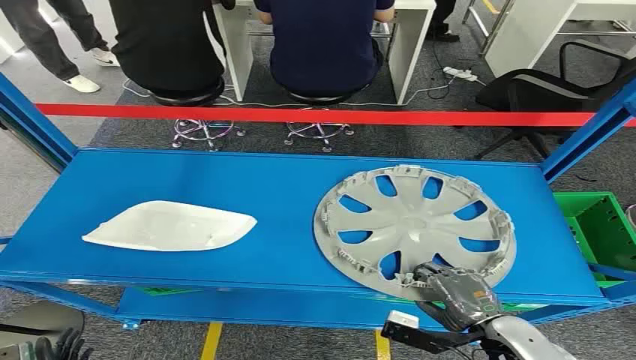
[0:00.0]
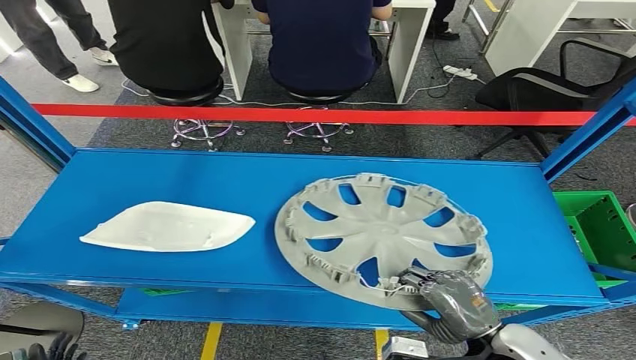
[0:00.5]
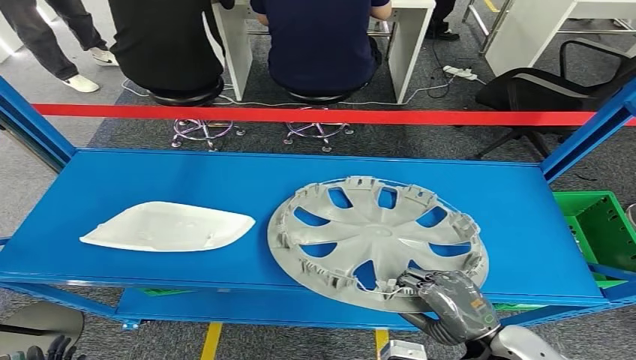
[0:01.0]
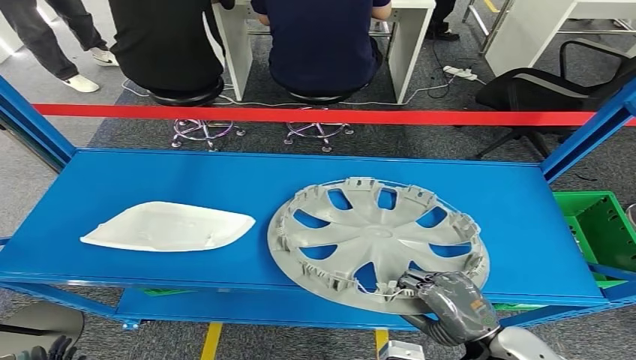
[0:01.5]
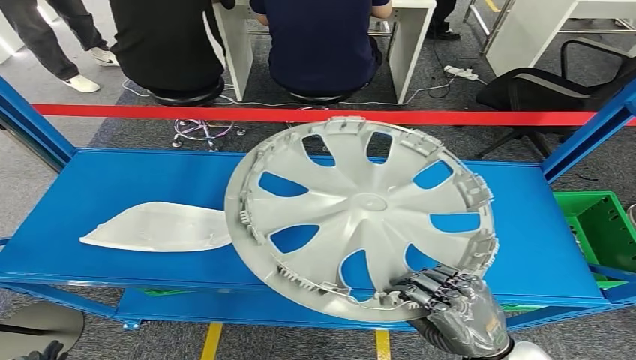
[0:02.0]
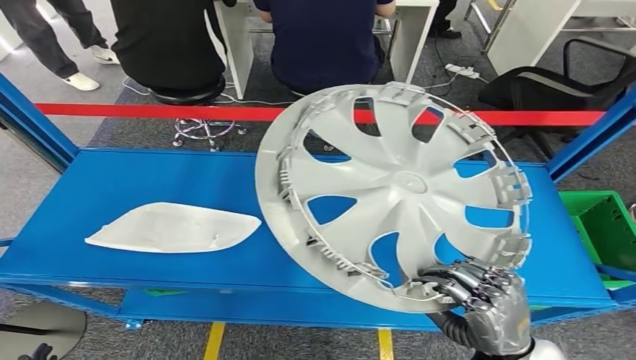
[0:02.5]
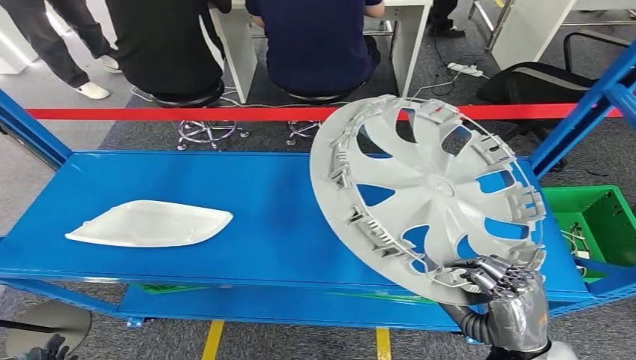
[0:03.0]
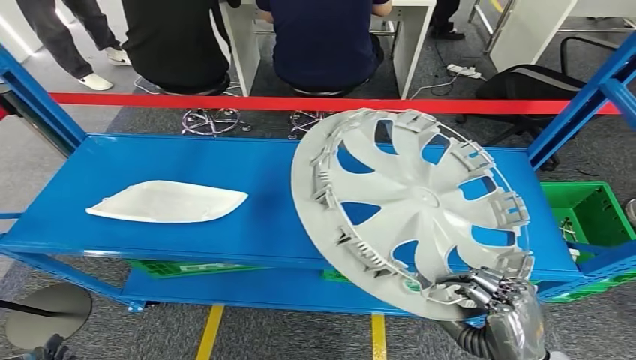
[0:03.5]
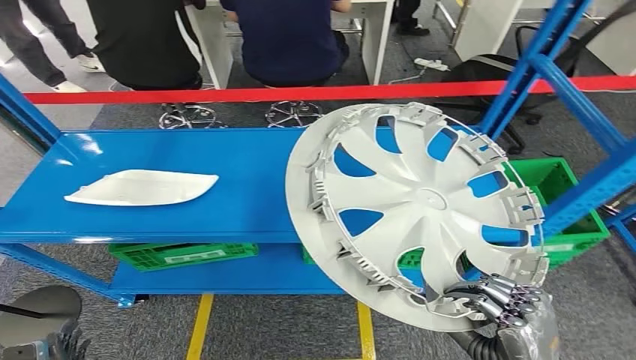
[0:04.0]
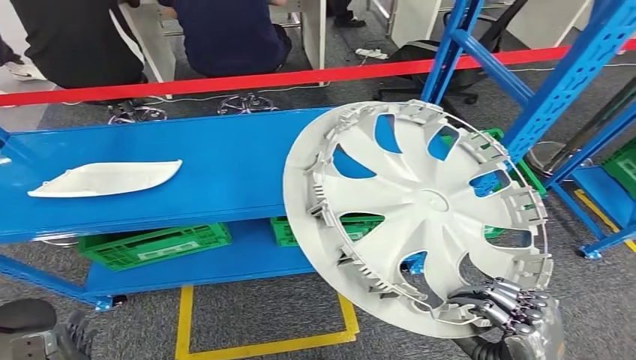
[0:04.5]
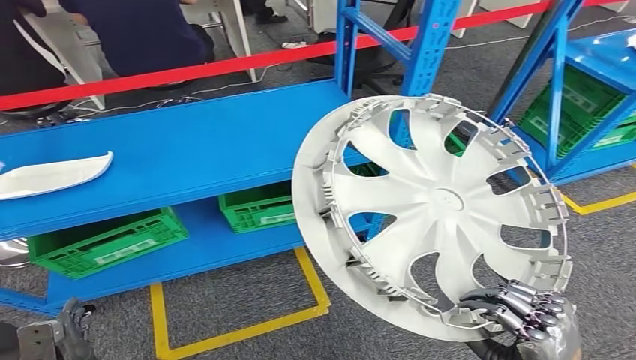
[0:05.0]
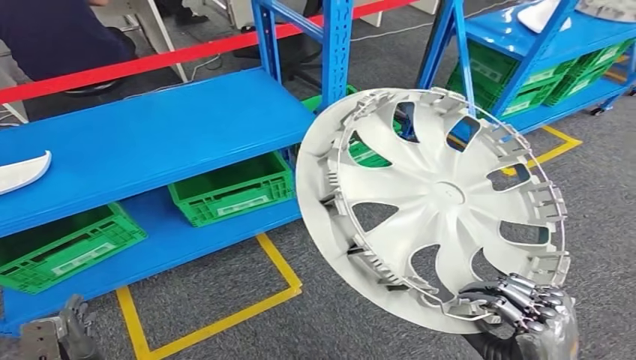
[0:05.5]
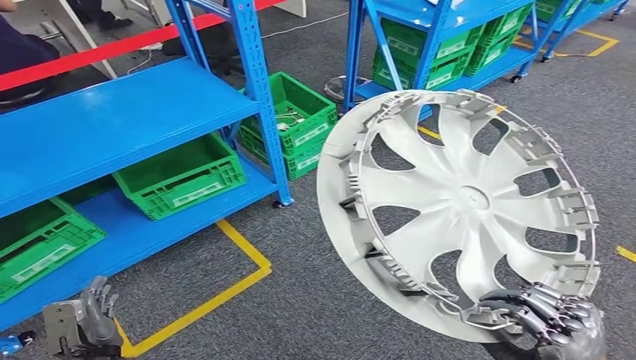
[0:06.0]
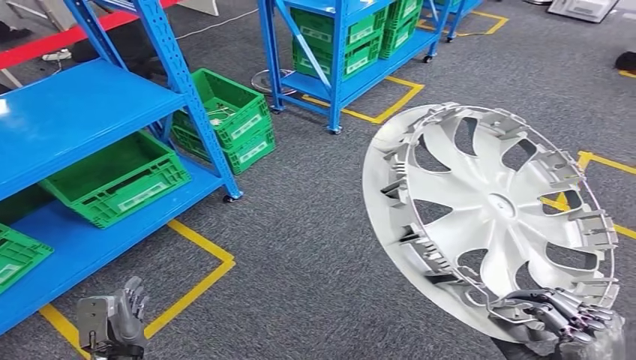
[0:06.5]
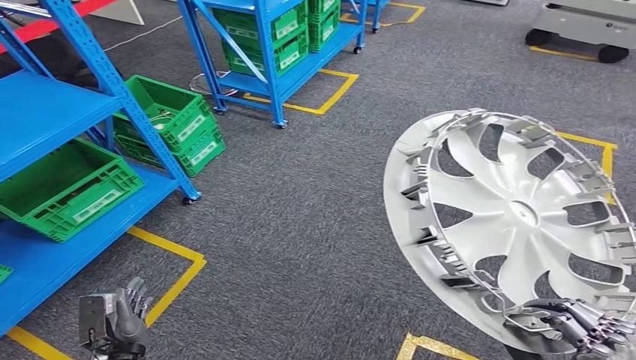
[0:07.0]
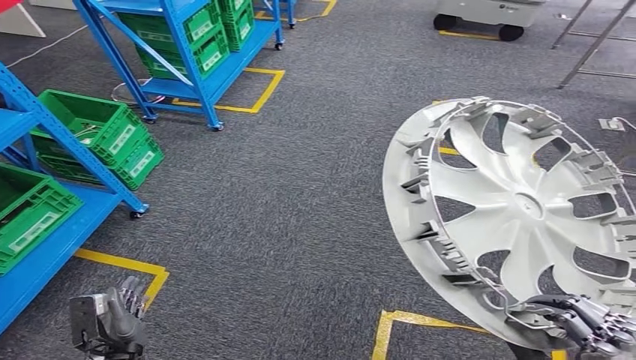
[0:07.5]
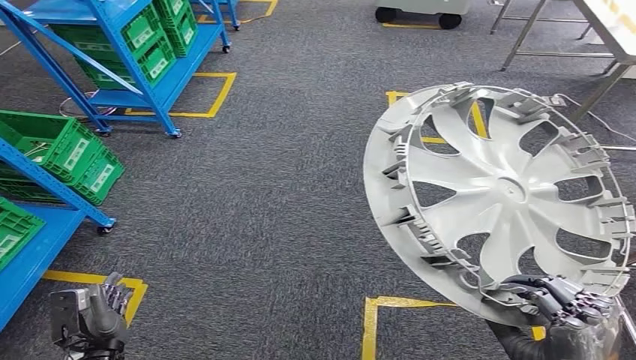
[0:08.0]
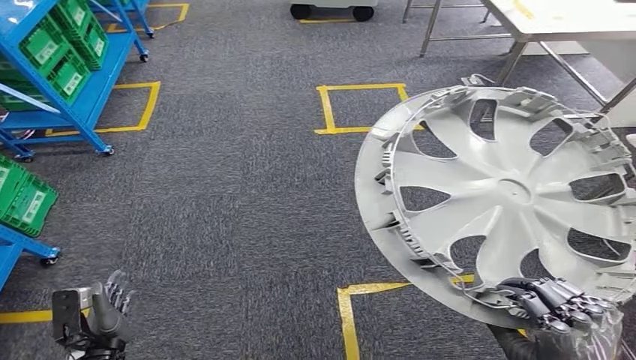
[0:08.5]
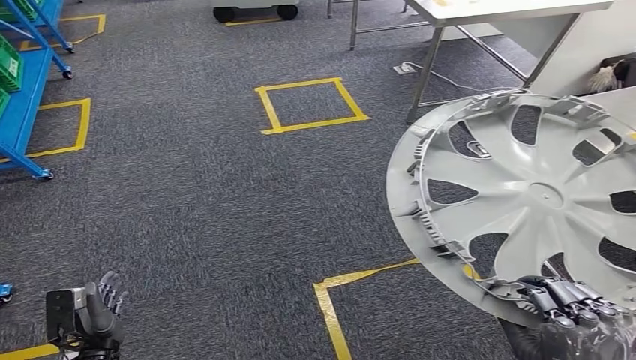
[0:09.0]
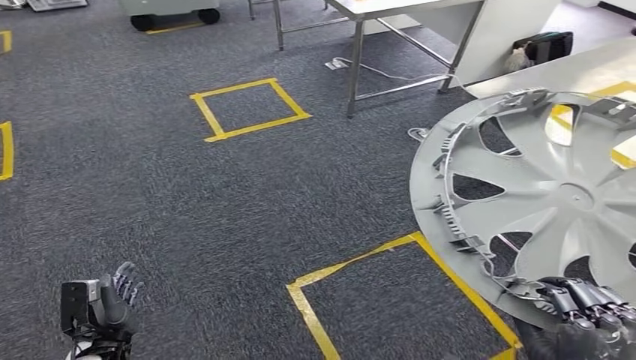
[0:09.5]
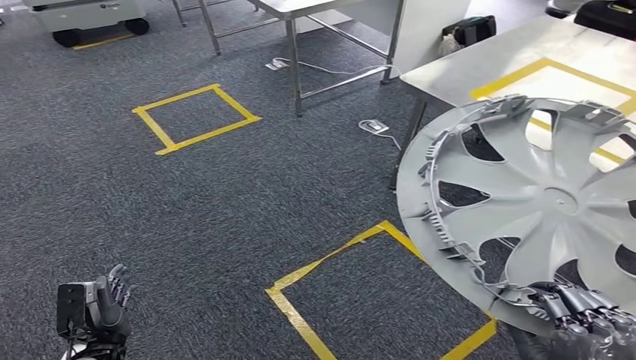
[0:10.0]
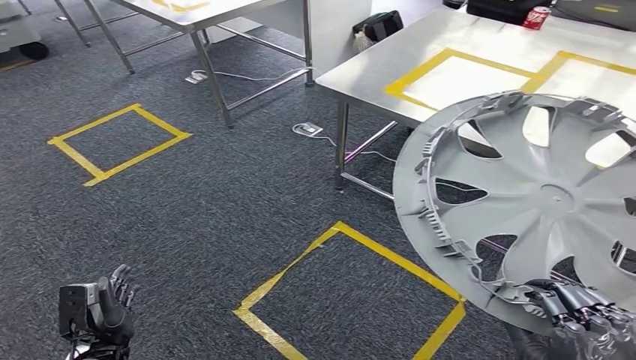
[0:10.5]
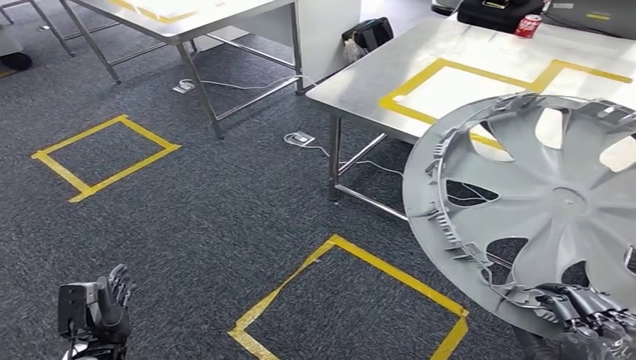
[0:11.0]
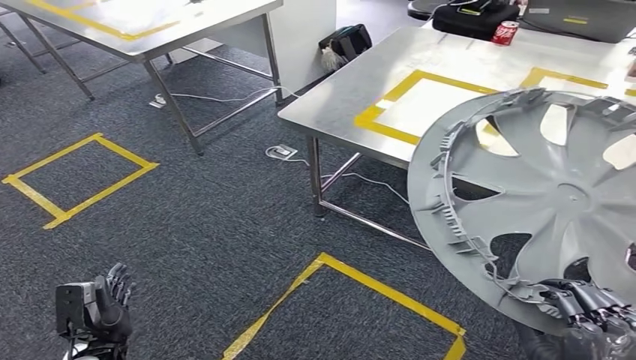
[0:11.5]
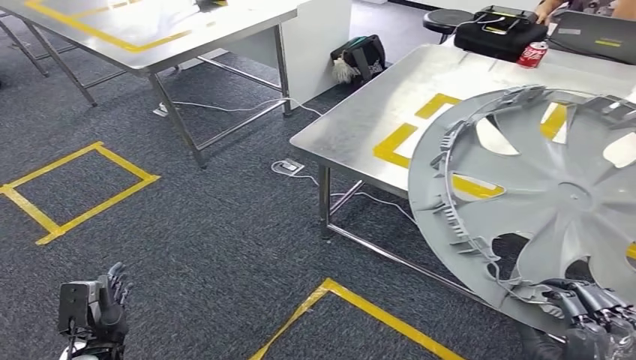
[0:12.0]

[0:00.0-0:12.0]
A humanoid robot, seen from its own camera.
Step, 0:00.0 to 0:03.0: Pick up the small component from the shelf.

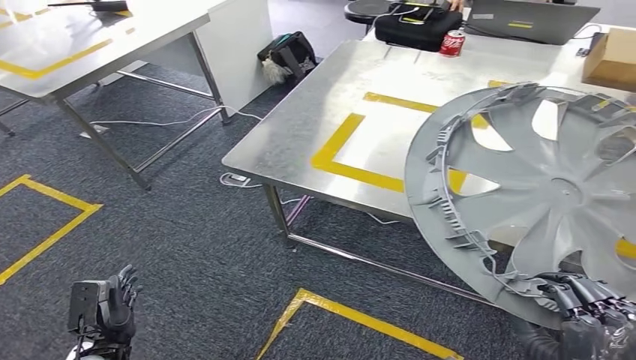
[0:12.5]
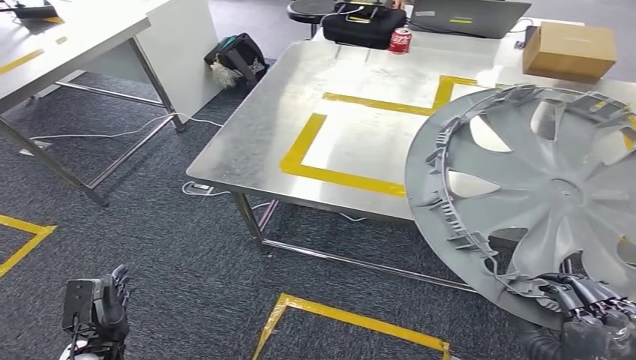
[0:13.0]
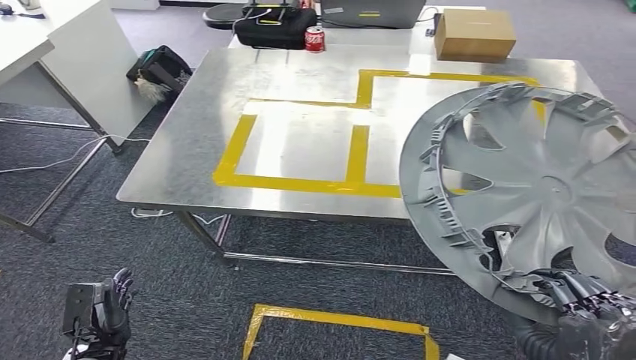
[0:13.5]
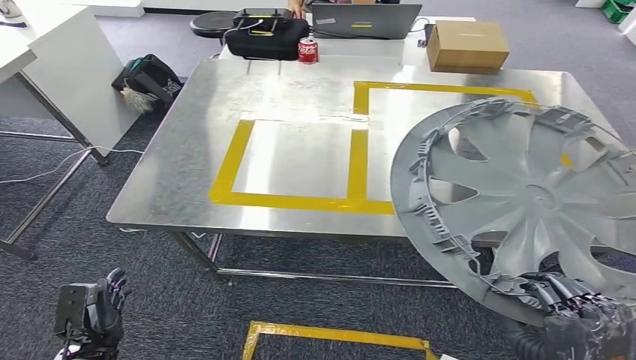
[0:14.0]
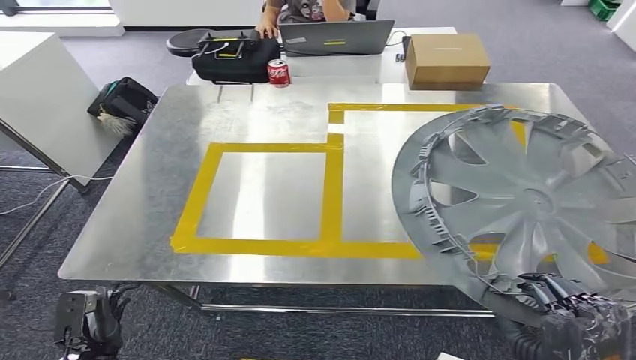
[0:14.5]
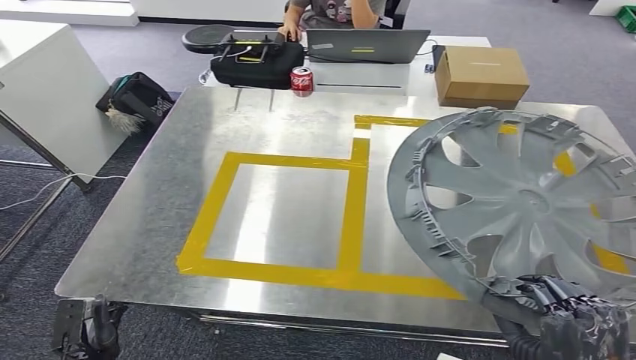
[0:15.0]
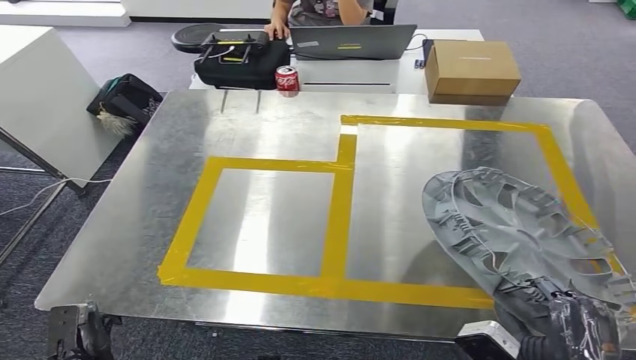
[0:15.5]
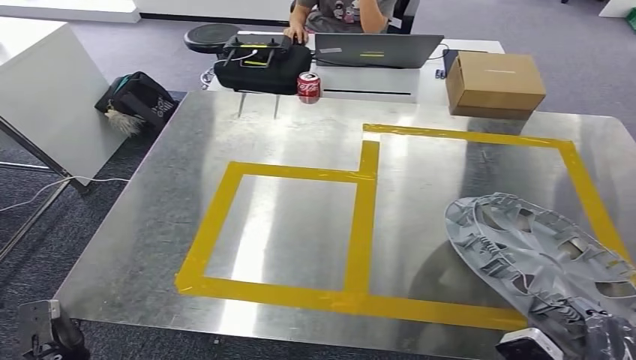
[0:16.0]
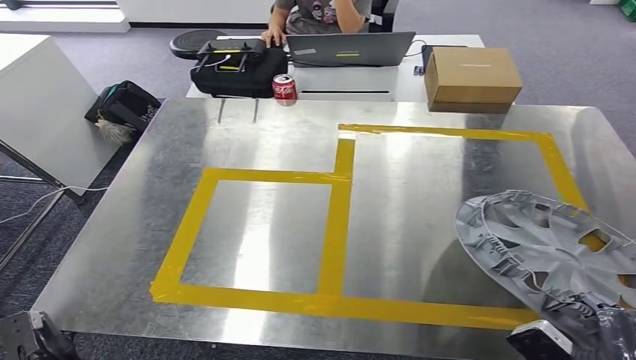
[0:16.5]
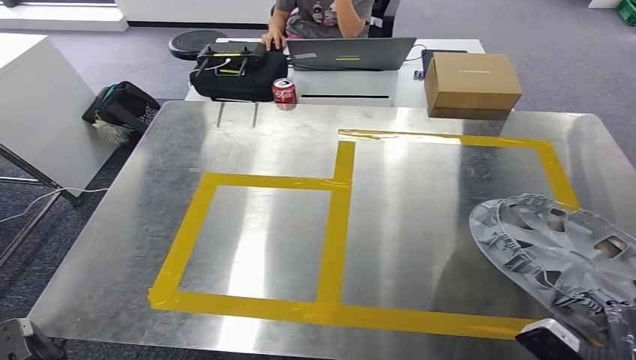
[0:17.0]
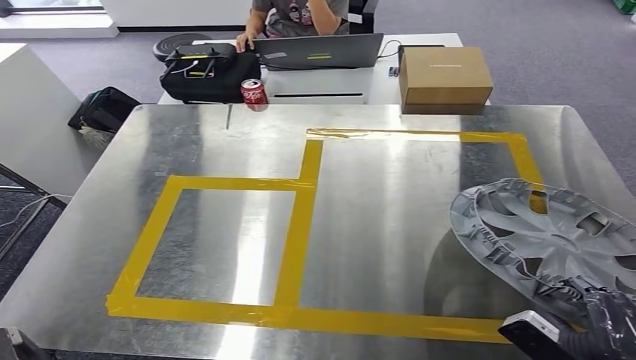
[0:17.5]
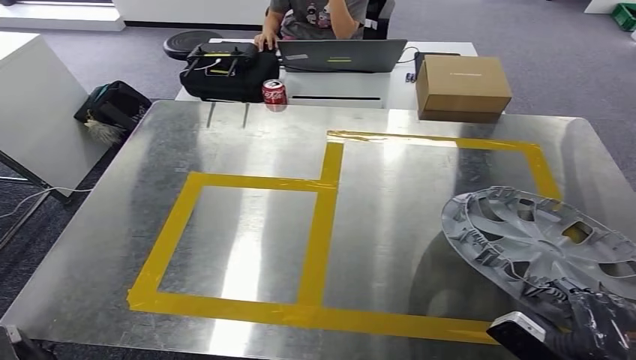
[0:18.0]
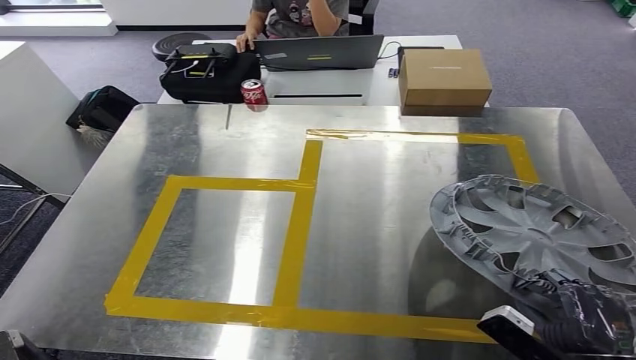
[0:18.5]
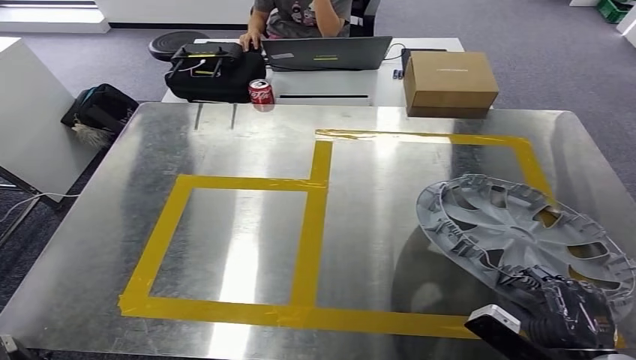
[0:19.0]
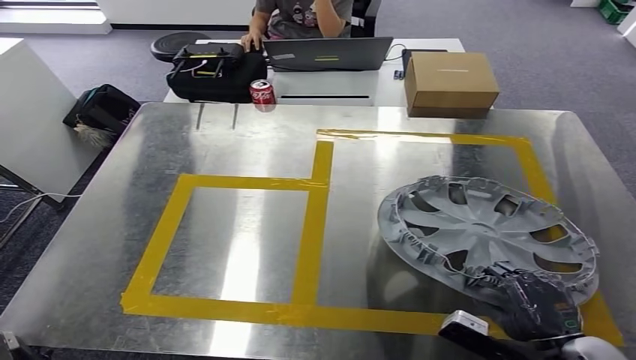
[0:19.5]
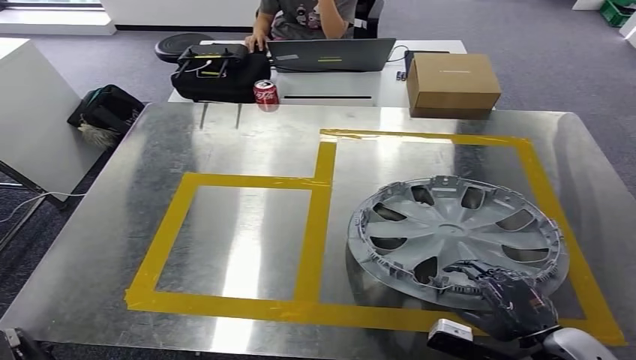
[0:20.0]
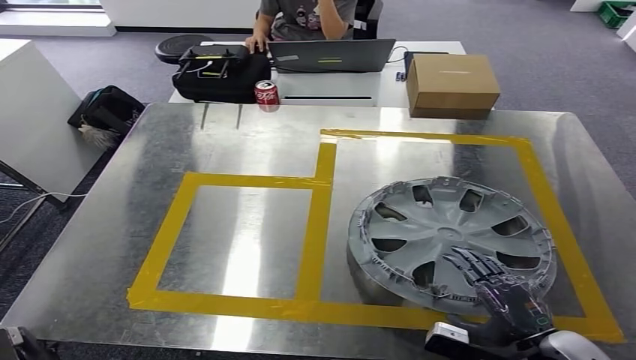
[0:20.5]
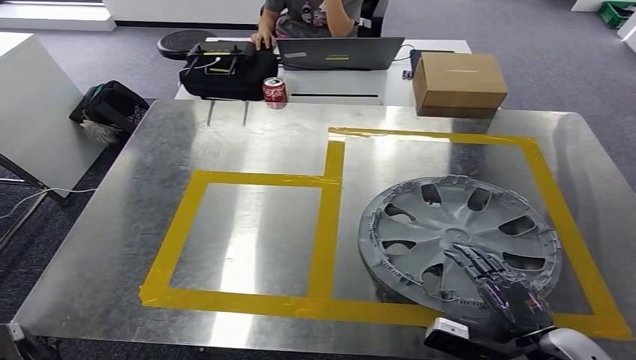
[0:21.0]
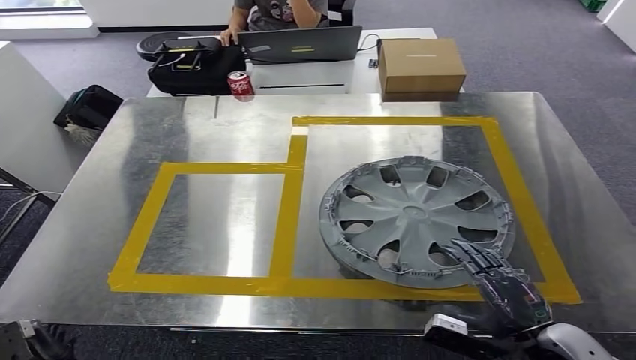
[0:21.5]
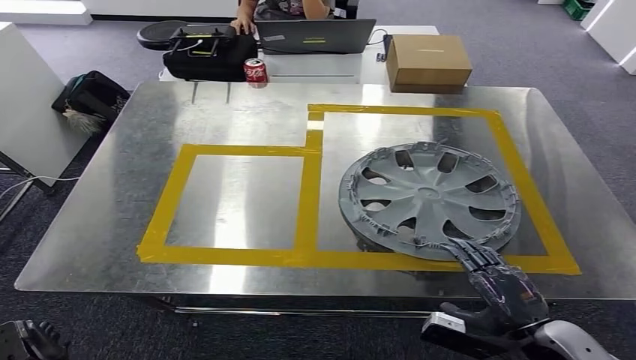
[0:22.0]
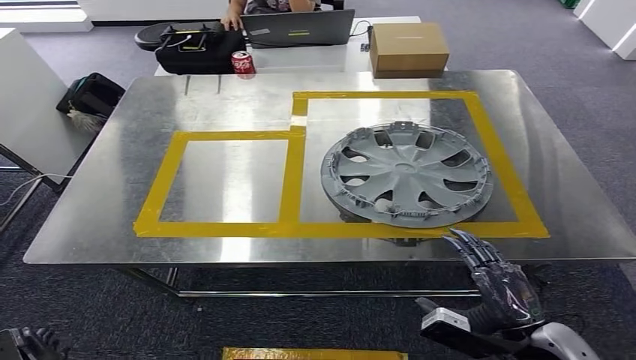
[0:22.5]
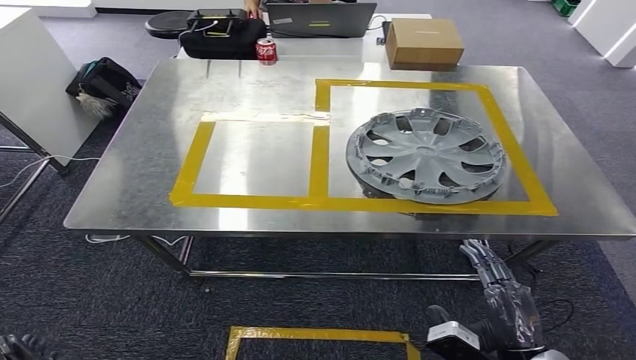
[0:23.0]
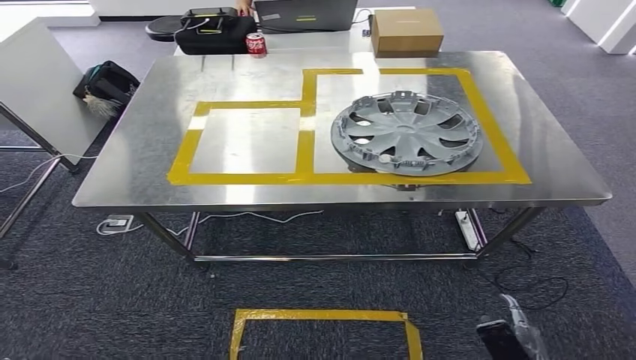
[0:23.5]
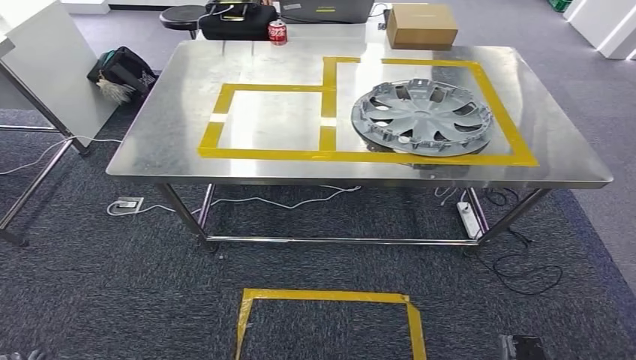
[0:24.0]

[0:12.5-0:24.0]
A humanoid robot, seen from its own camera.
Step, 0:14.0 to 0:22.0: Insert the small component into the corresponding slot on the workbench.
